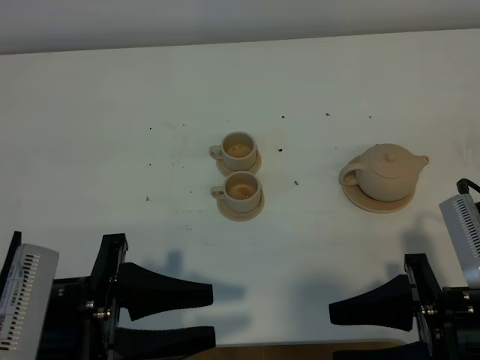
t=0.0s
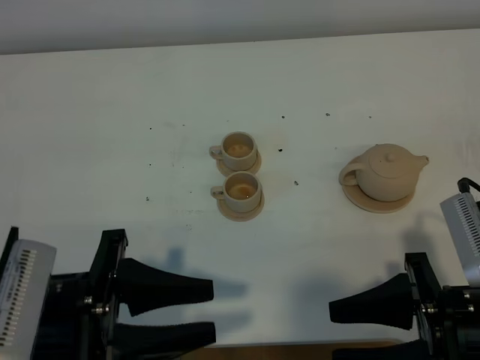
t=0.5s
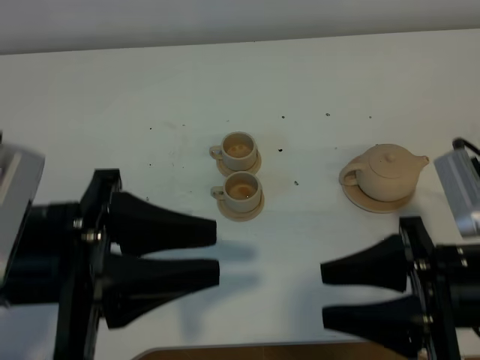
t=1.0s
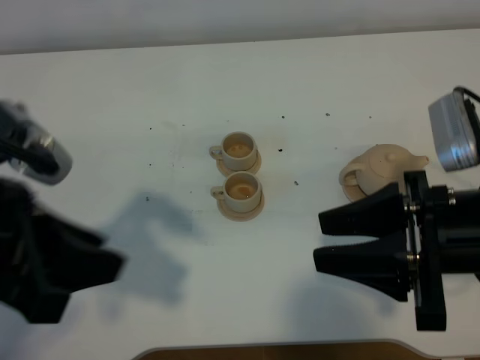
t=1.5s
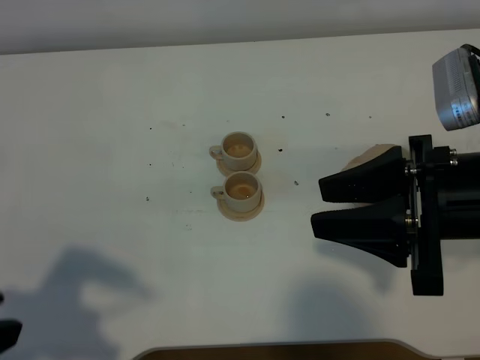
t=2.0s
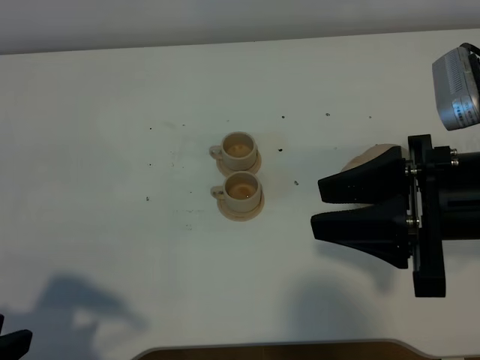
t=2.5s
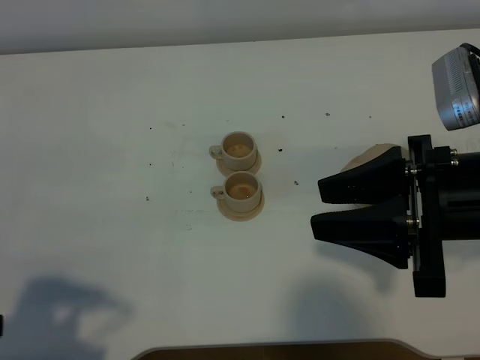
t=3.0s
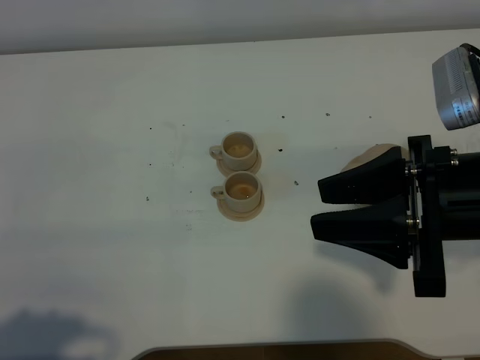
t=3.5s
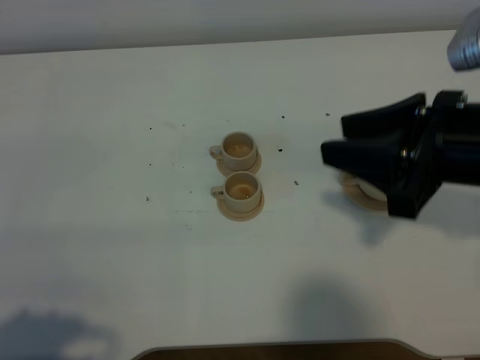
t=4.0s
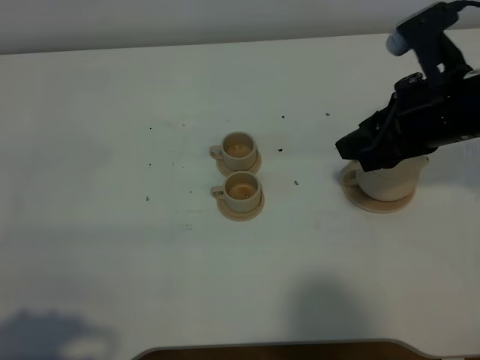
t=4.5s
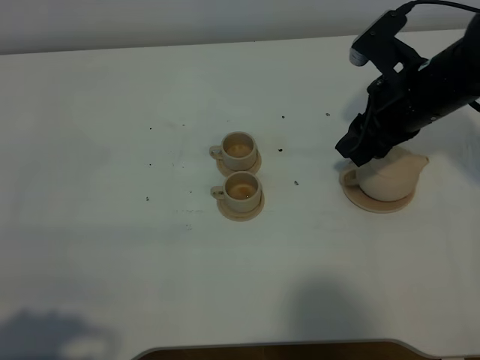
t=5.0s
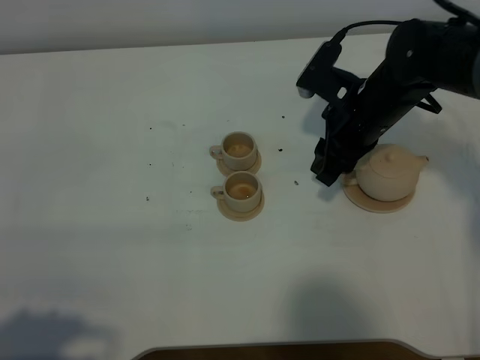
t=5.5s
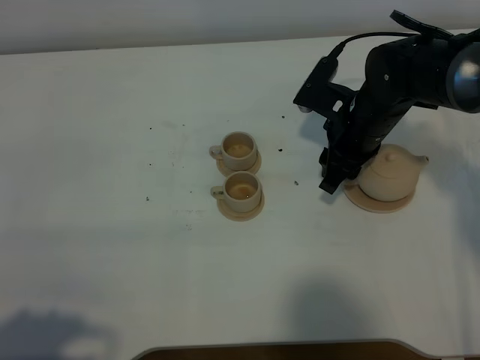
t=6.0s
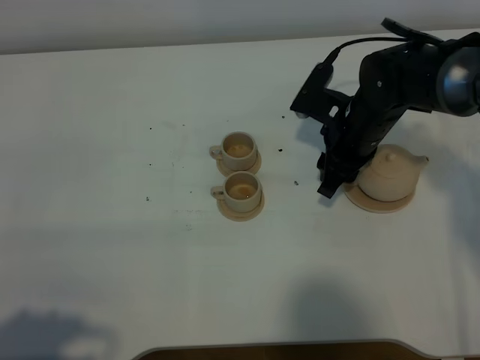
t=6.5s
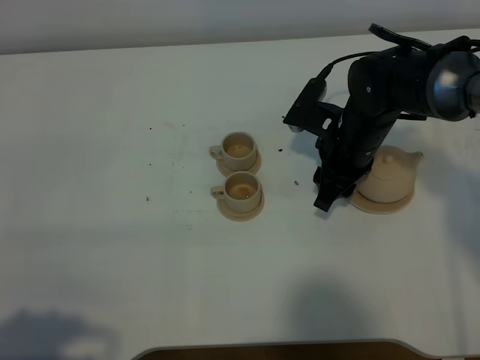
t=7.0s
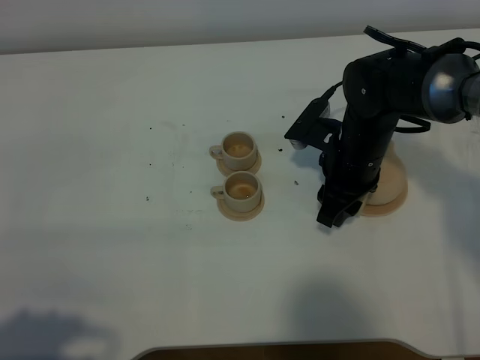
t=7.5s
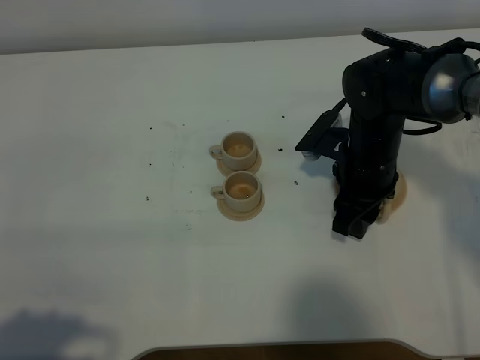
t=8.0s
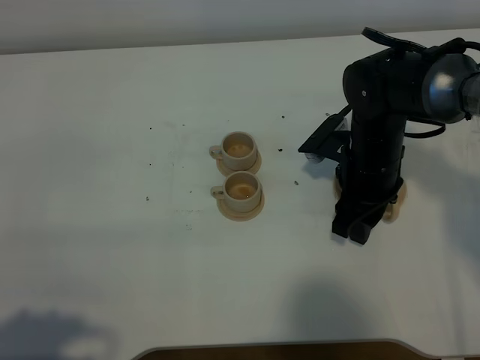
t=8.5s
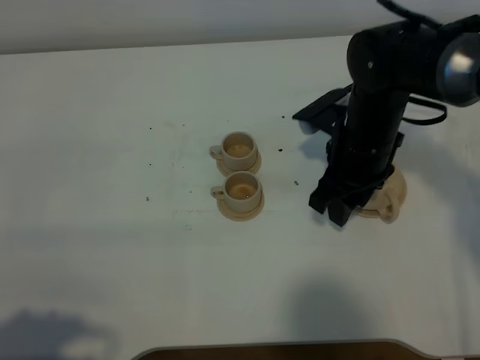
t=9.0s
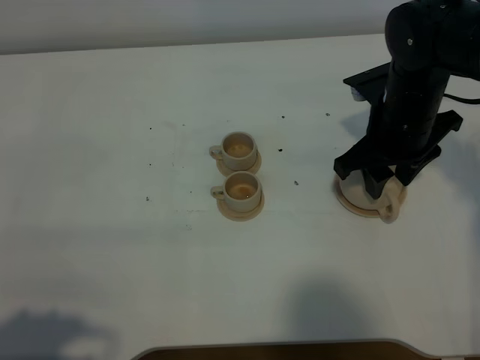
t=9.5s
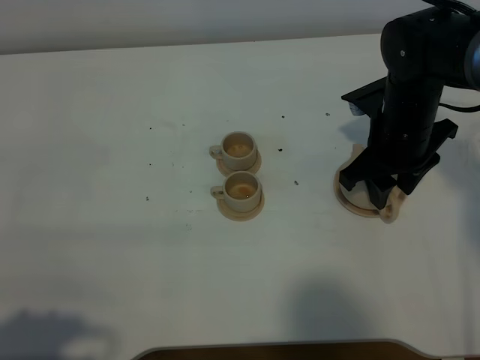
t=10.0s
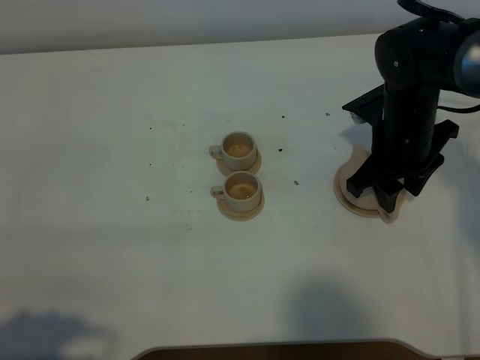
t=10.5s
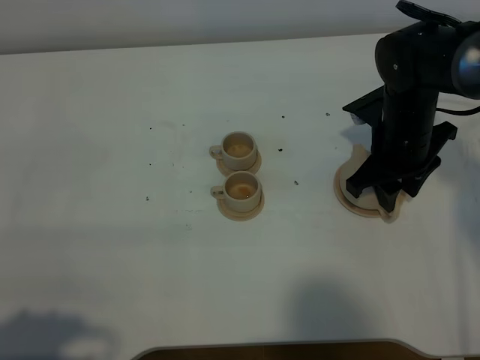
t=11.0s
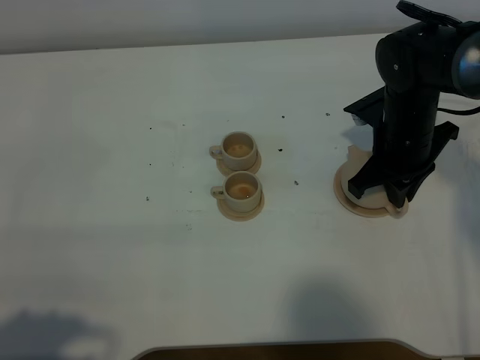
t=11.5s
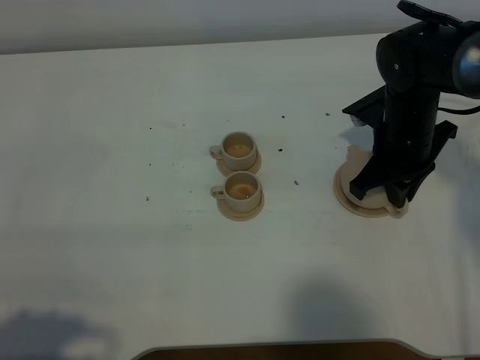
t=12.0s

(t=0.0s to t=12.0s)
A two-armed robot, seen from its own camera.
Task of the whole recording: grasp the brown teapot and pour the tea into the two brown teacups one by one, put the brown teapot back in its original place.
t=0.0s - t=2.0s: The right gripper shifts about 10 cm upward and forward; the left gripper moves to the left and upward, approximately 10 cm.
t=2.0s - t=4.0s: The left gripper heads backward, covering about 5 cm.
t=4.0s - t=6.0s: The right gripper heads forward and downward, covering roughly 20 cm.
t=8.0s - t=10.0s: The right gripper shifts by some 5 cm.
t=10.0s - t=12.0s: The right gripper closes.

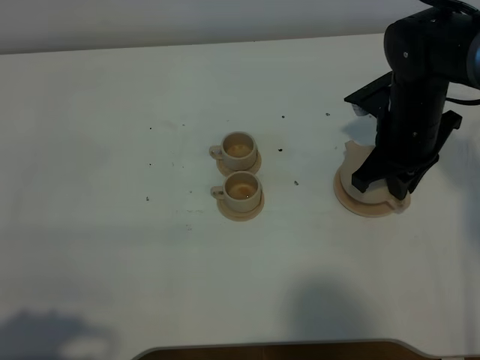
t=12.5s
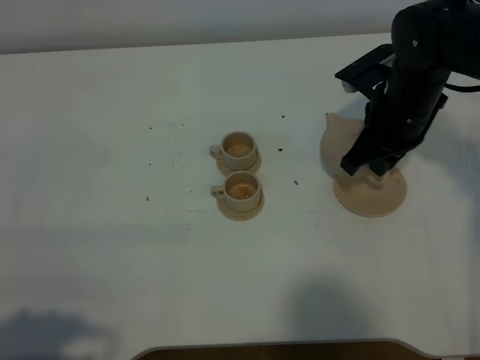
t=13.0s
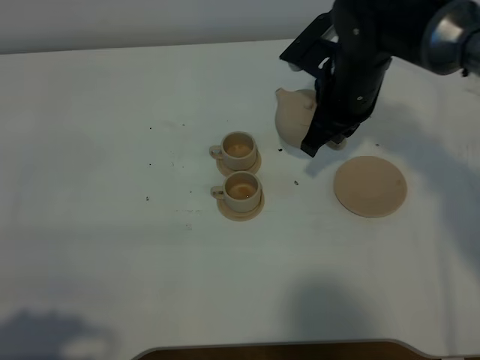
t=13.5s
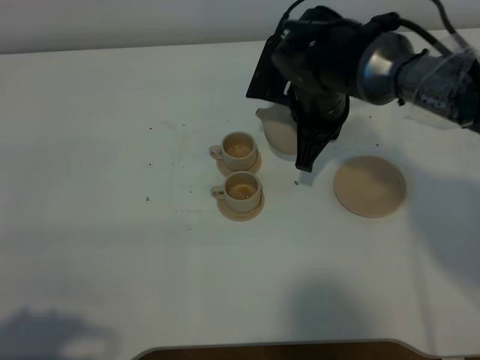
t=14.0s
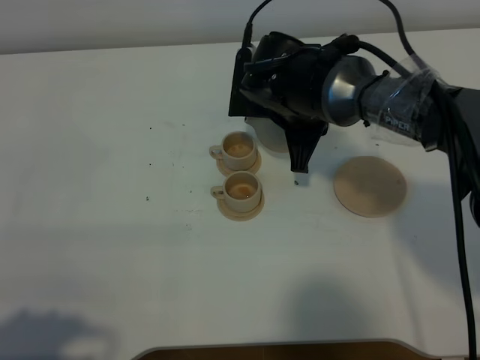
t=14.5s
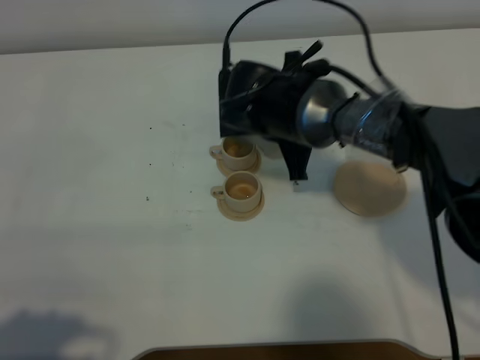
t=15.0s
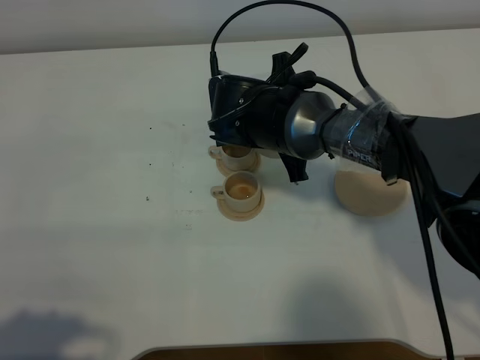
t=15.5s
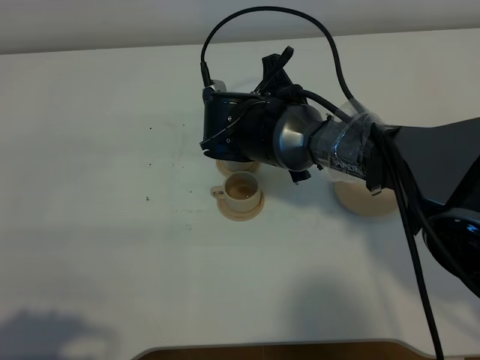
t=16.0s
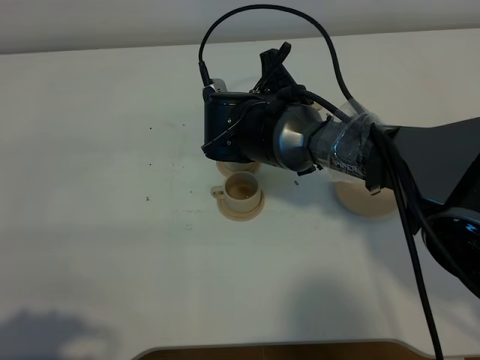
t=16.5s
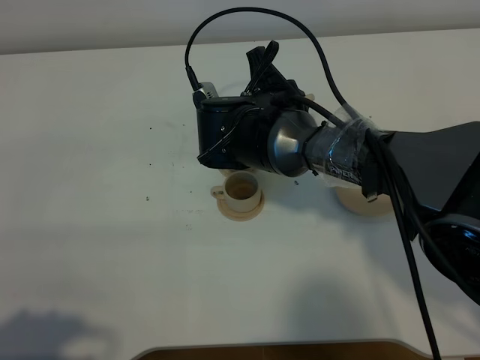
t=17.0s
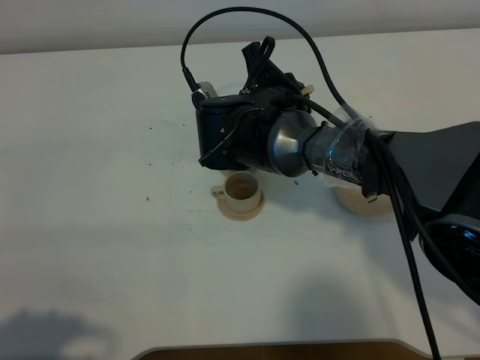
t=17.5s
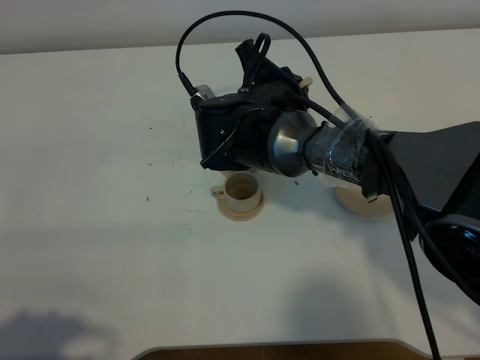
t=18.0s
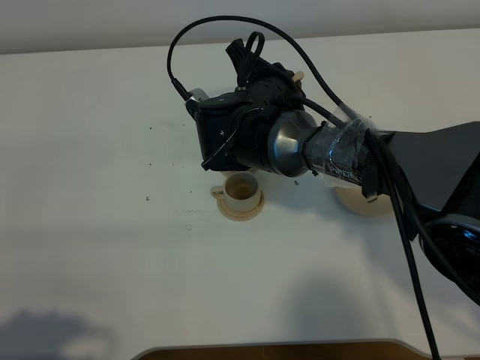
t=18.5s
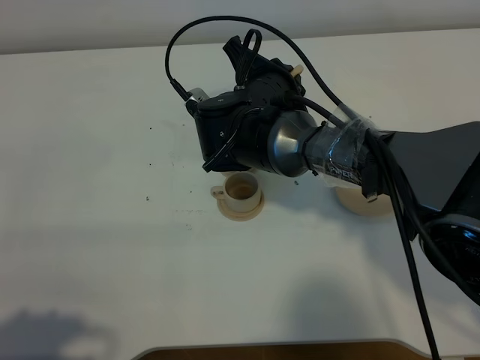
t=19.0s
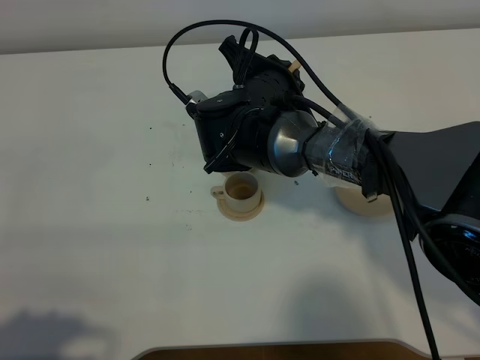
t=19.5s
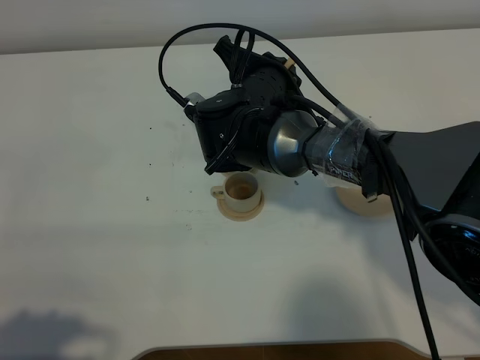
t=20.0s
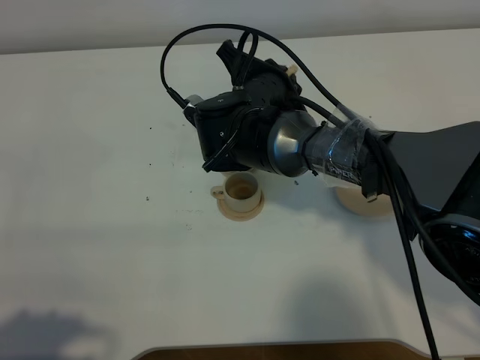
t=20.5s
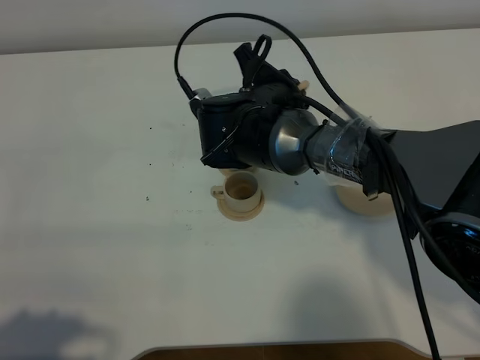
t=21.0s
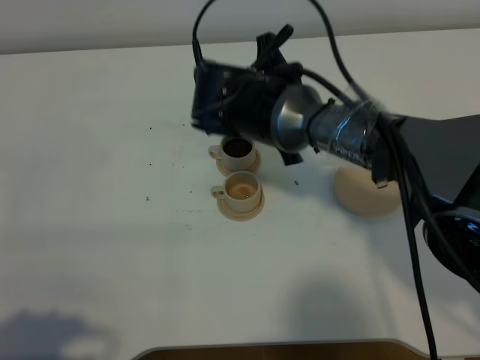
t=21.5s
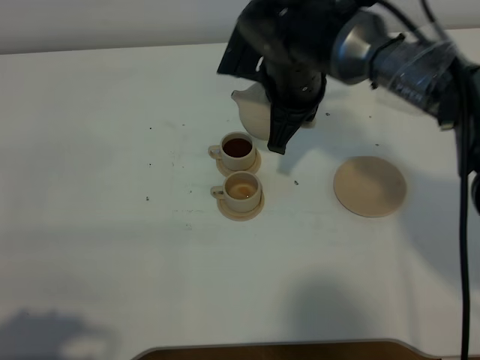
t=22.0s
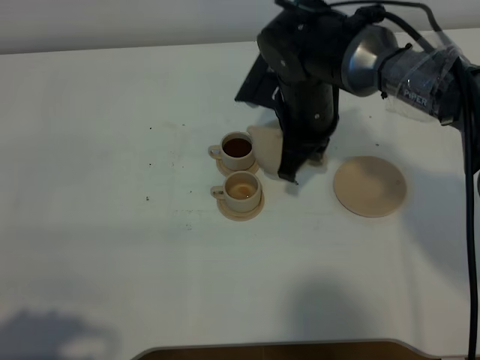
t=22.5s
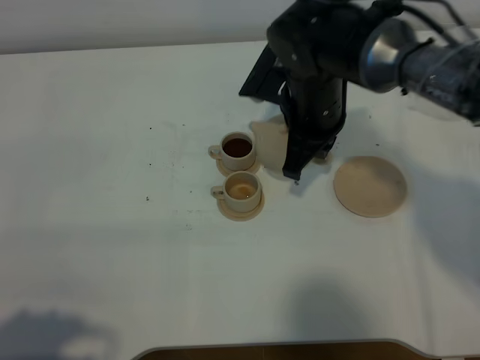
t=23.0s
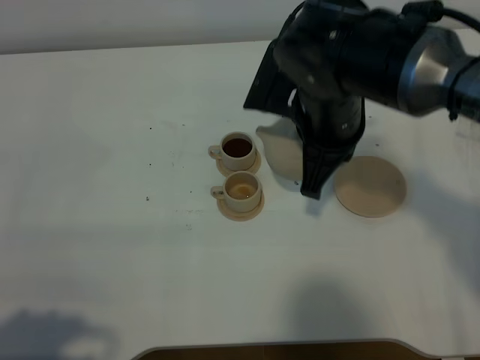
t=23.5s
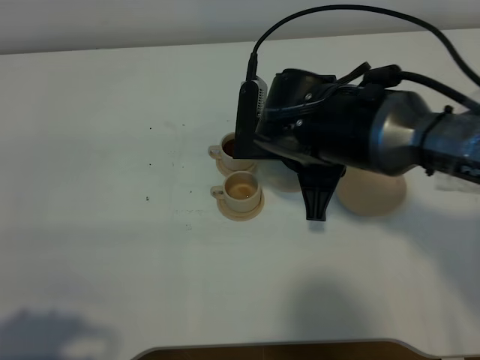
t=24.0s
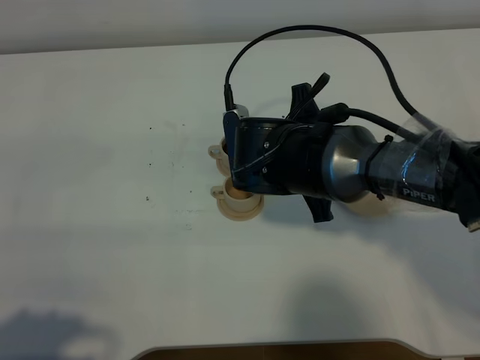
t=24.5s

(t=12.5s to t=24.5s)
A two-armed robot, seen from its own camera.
Task of the whole recording: grasp the brown teapot and pour the tea into the two brown teacups one by one, put the brown teapot back in its original place.
t=12.5s - t=14.5s: The right gripper shifts some 15 cm to the left.
t=18.5s - t=20.5s: The grippers move only a little.
t=20.5s - t=22.5s: The right gripper moves to the right, roughly 5 cm.
t=22.5s - t=24.5s: The right gripper travels backward by some 10 cm.

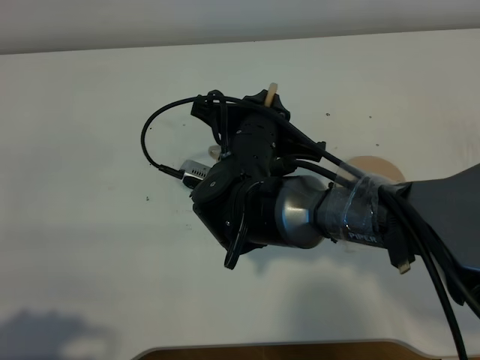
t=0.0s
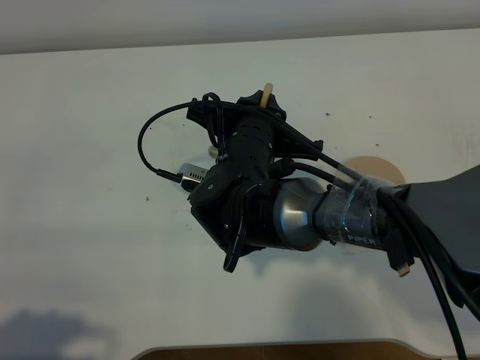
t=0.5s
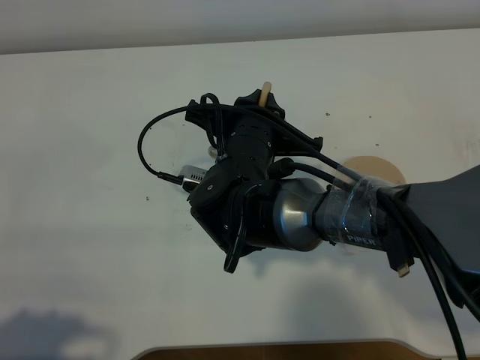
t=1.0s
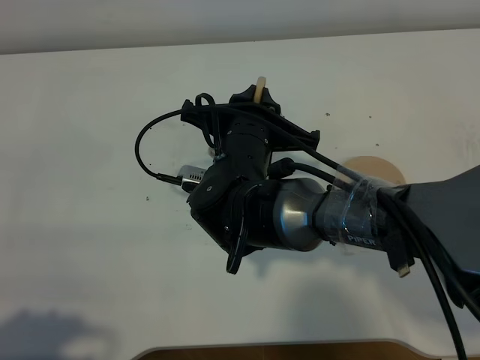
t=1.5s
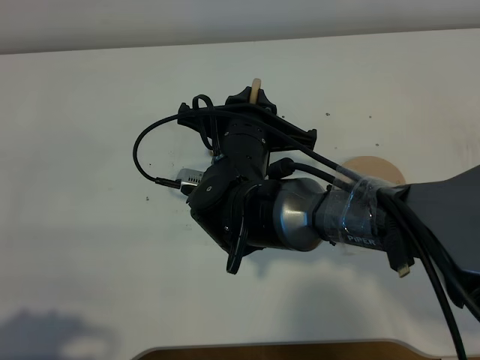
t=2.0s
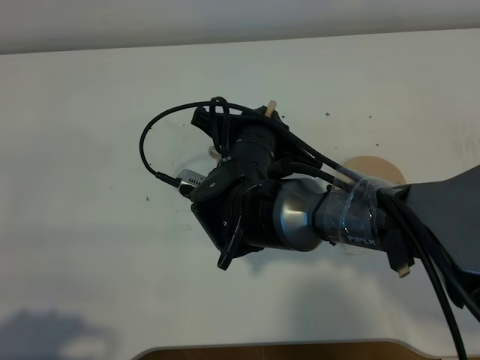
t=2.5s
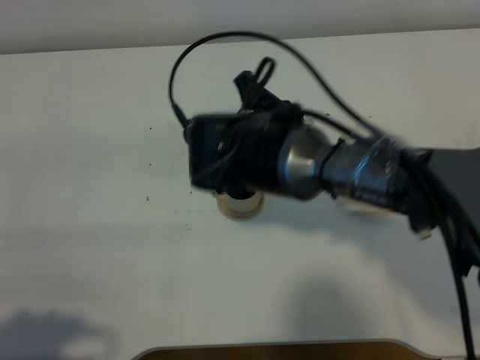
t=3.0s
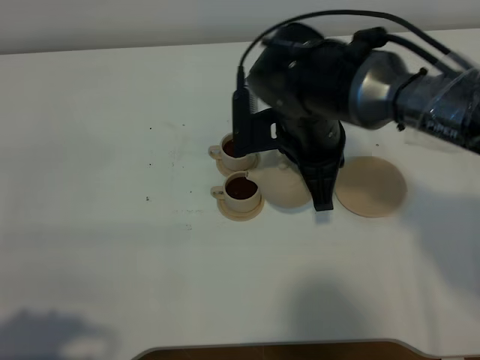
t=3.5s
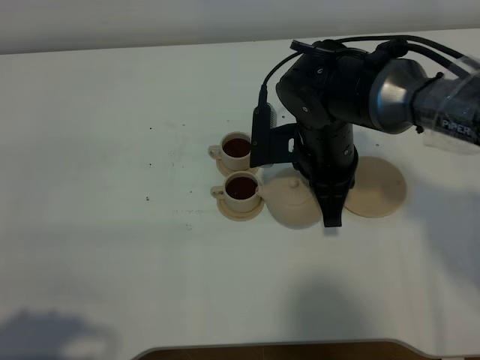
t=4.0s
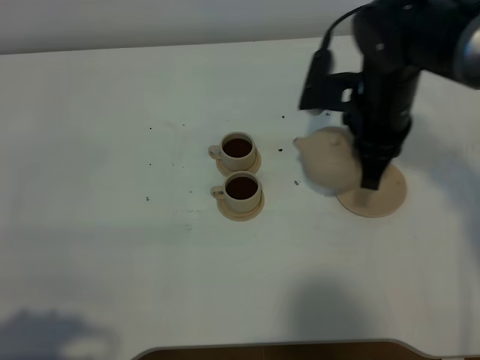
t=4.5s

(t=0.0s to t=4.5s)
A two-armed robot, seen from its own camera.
Task of the whole recording: grasp the brown teapot and pour the tea into the two brown teacups one by one, put the brown teapot back in its original place.
Step, t=0.0s - t=3.0s: Pour tea into the teacup with the right gripper.
t=0.0s - t=2.0s: The grippers make only small movements.
t=2.0s - t=4.5s: The right gripper moves to the right, approximately 15 cm.
